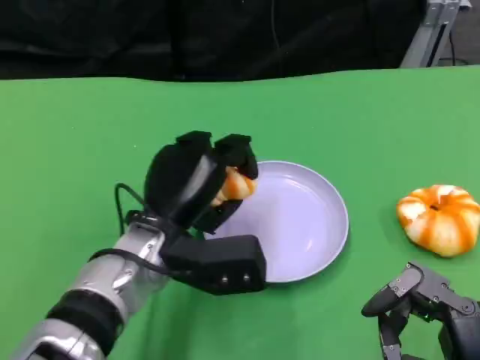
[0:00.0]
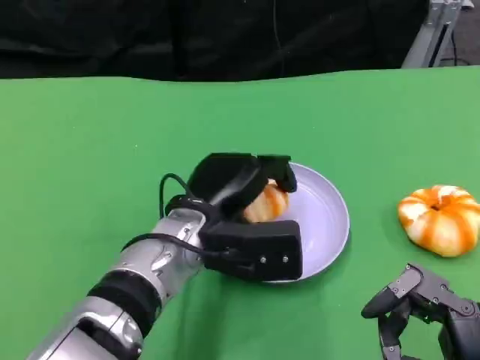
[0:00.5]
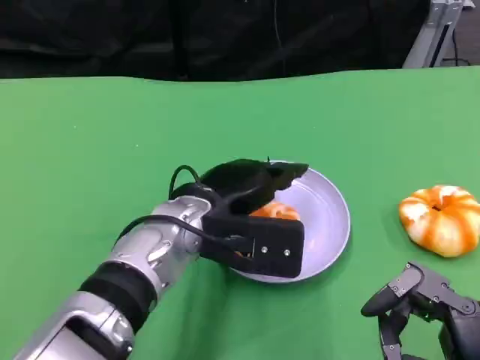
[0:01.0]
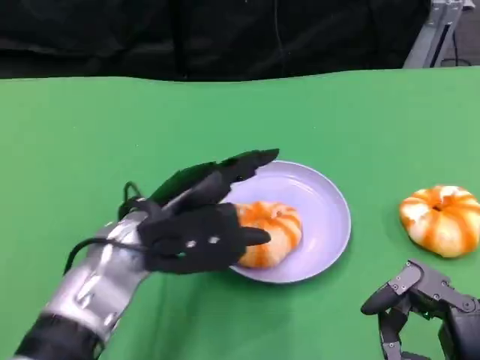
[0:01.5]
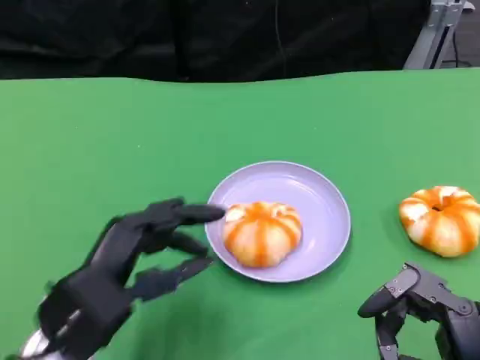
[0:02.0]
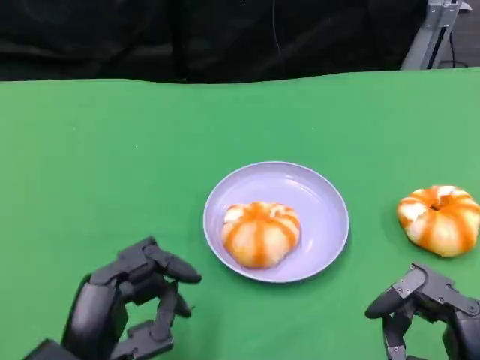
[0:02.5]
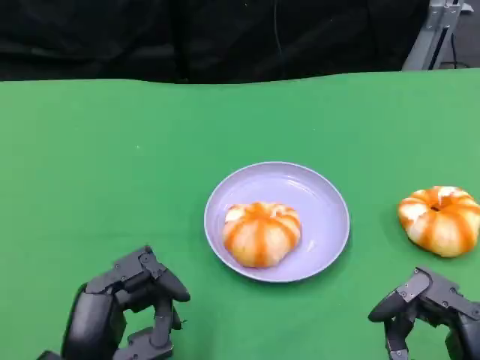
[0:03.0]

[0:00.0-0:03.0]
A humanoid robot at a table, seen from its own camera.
Task of the whole recording: Grasp the bread from the table and place it into the plate.
0:01.5 to 0:03.0: The left hand shifts roughly 15 cm backward and downward.

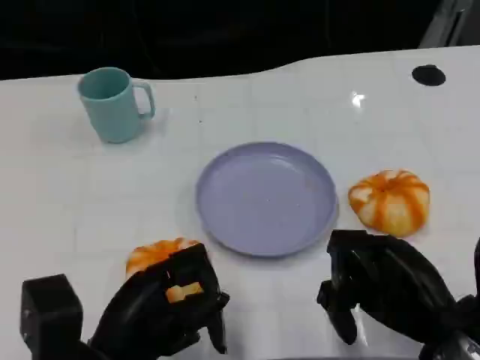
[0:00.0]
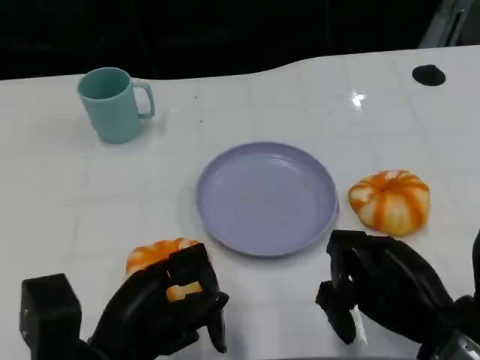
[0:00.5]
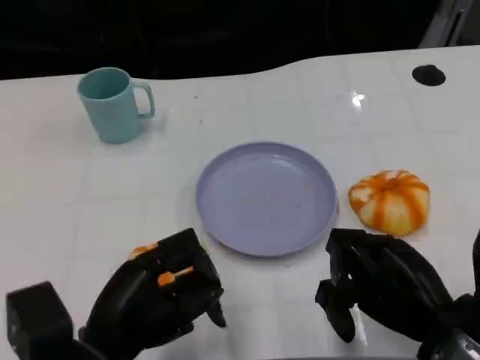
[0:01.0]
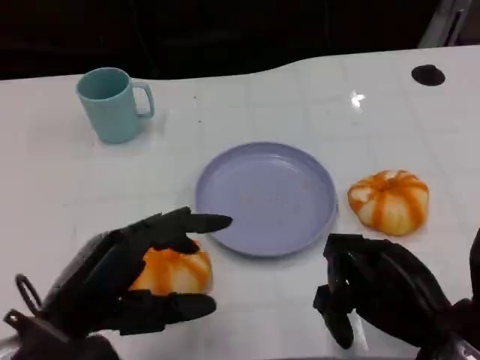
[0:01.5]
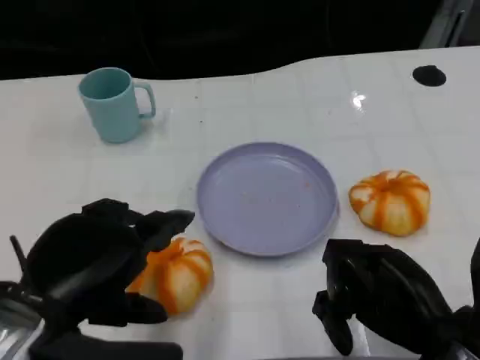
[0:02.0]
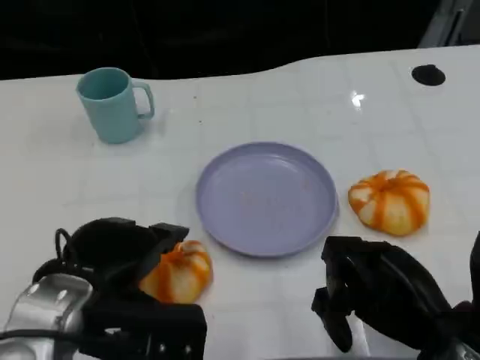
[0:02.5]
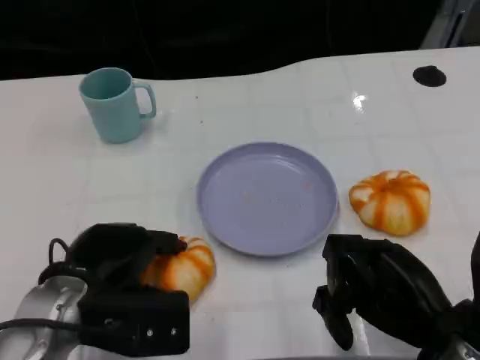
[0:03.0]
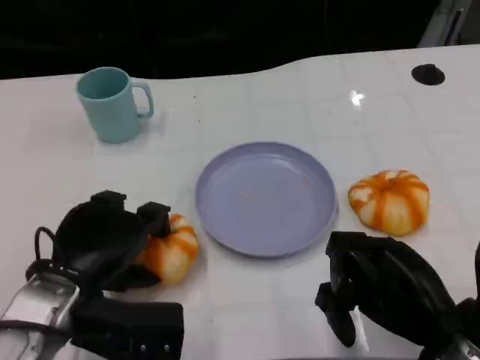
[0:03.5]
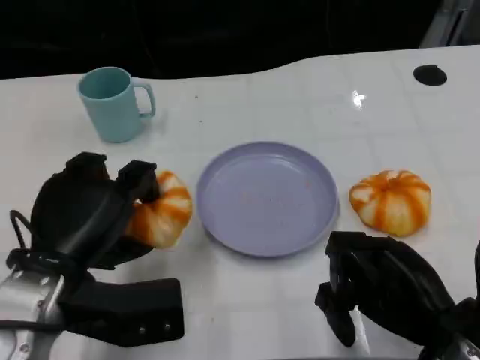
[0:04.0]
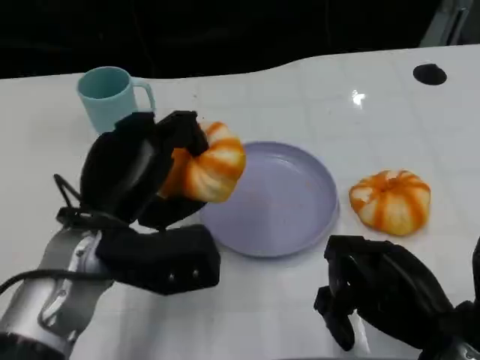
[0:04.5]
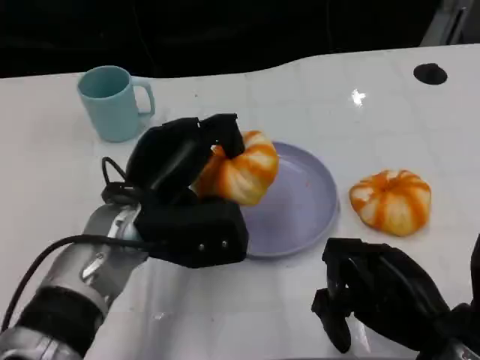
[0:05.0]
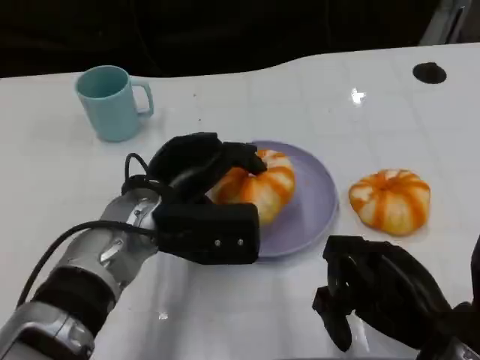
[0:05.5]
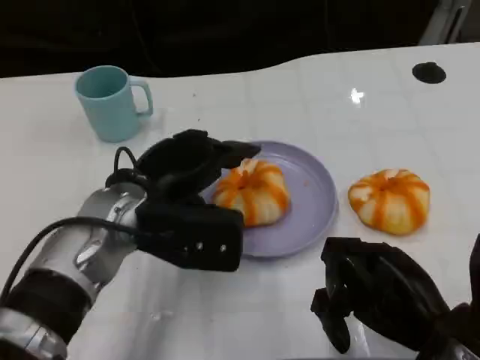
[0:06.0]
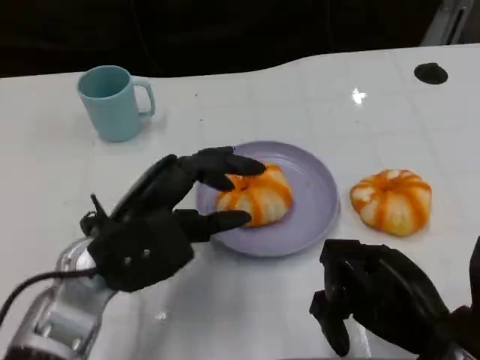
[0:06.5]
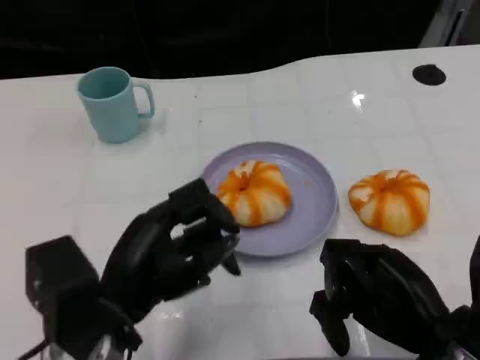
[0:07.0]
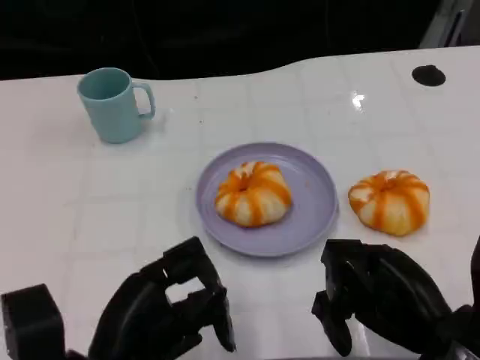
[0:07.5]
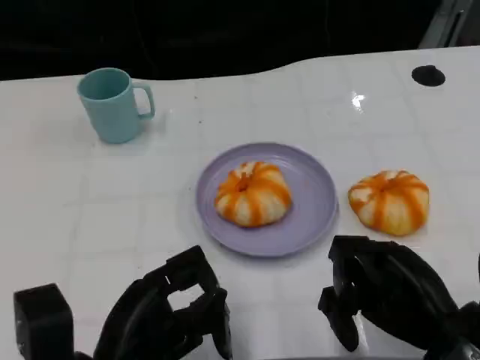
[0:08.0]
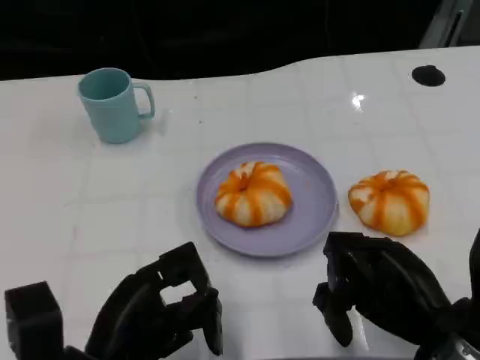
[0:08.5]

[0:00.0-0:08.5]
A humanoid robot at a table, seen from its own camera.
Task of the whole recording: Grasp the bread from the table and place it into the plate.
0:00.0 to 0:02.0: The left hand is displaced upward by some 10 cm.
0:02.0 to 0:04.0: The left hand heads forward and downward, covering about 10 cm.
0:06.5 to 0:08.5: The left hand goes some 10 cm backward and downward.

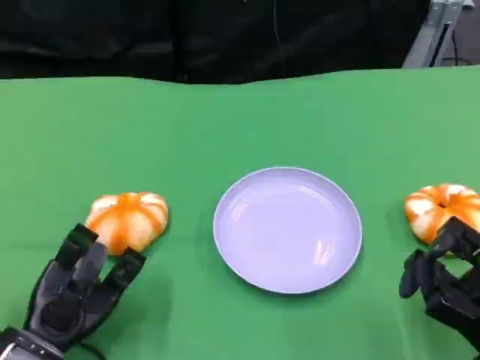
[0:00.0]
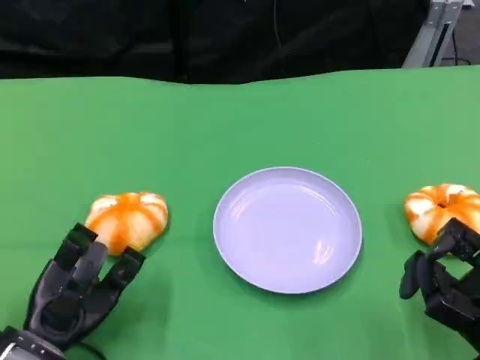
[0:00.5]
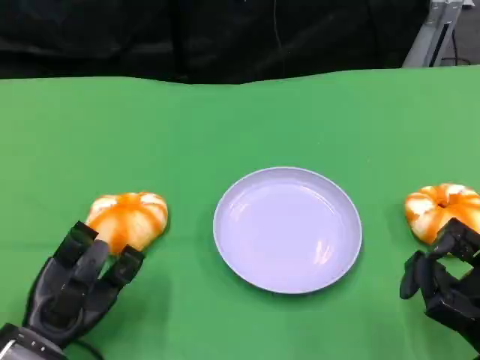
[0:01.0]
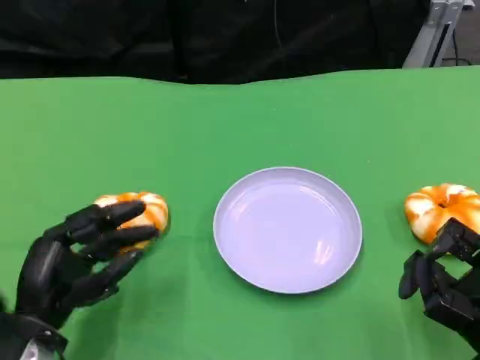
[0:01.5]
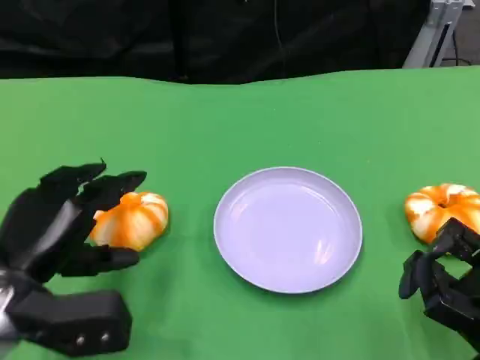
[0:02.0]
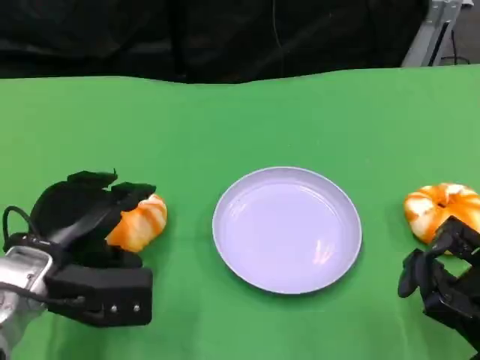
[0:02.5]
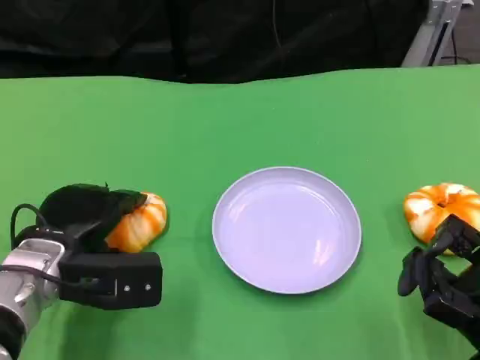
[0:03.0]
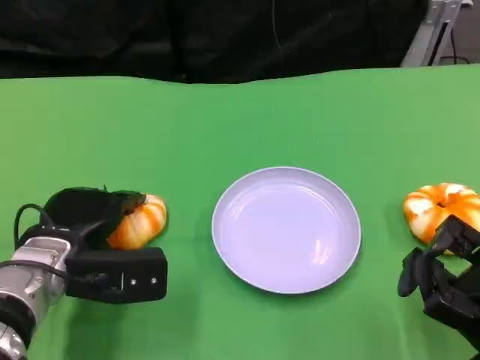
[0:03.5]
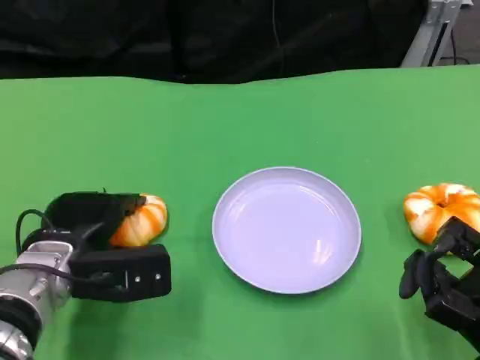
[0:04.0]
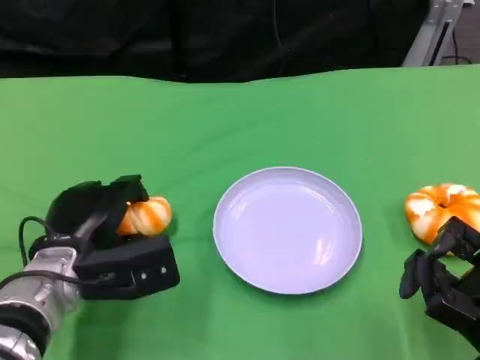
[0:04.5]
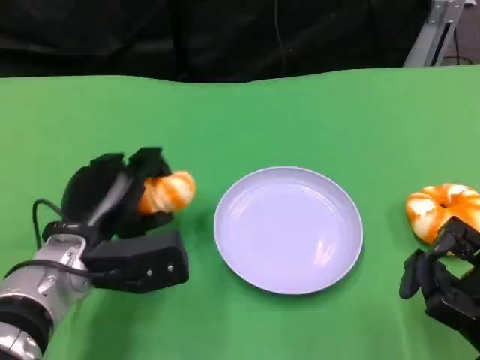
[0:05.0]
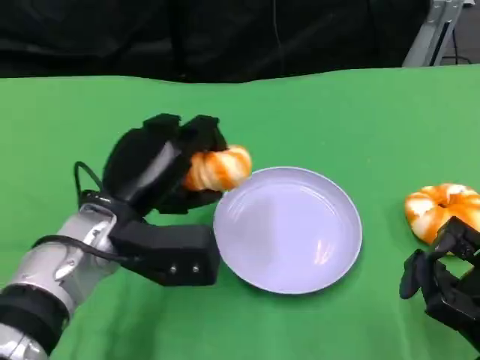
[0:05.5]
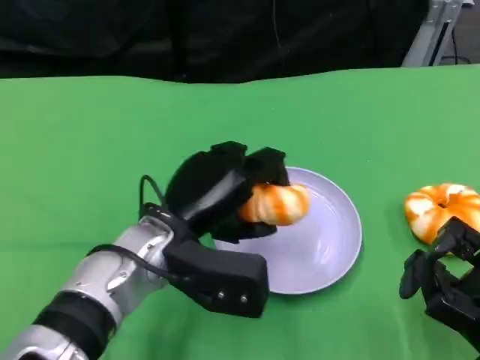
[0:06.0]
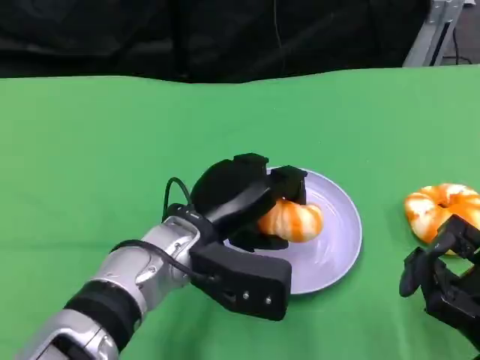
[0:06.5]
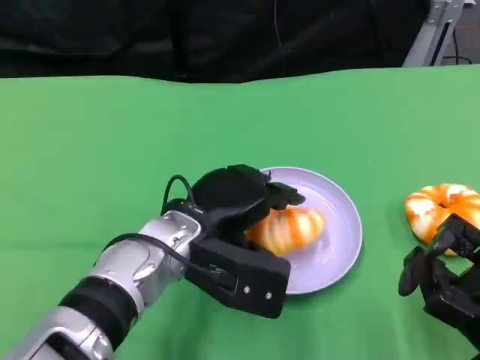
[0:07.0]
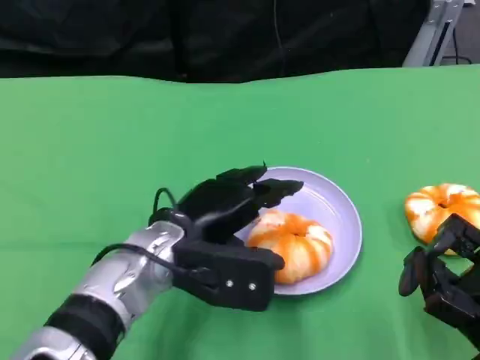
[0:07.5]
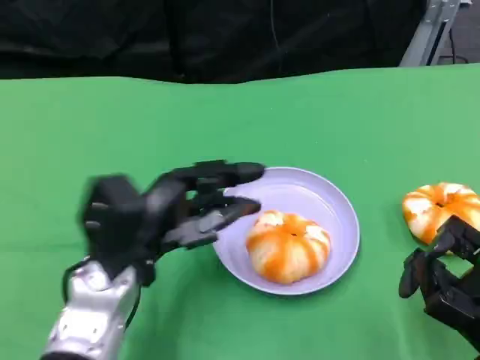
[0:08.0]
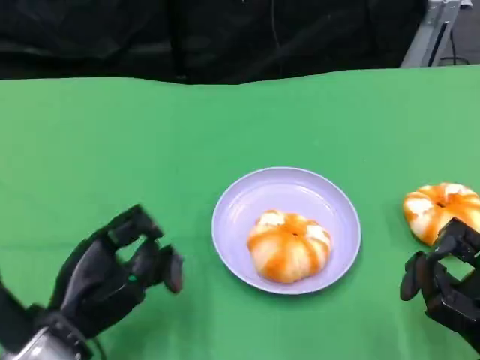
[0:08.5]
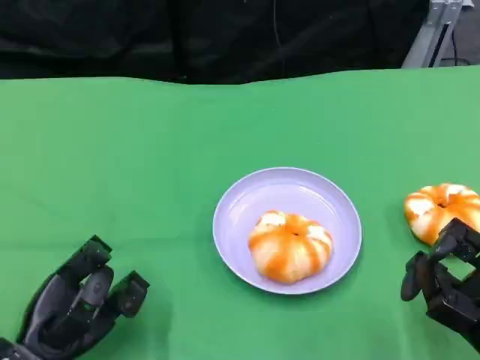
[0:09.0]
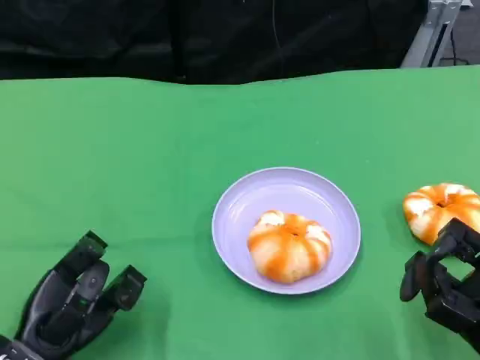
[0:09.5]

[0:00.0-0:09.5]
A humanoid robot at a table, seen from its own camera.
Task of the whole recording: Grasp the bread from the table and place it into the plate.
0:00.0 to 0:02.0: The left hand shifts approximately 10 cm upward.
0:02.0 to 0:04.0: The left hand goes some 5 cm forward.
0:04.0 to 0:05.5: The left hand shifts some 10 cm to the right and upward.
0:07.5 to 0:09.5: The left hand shifts roughly 20 cm to the left, downward and backward.

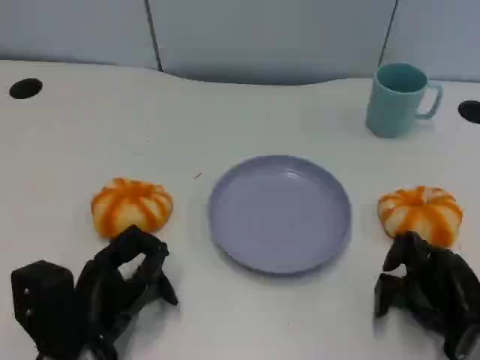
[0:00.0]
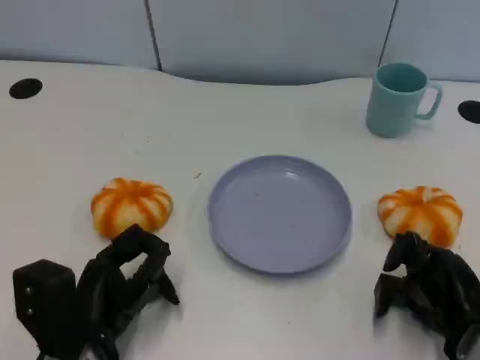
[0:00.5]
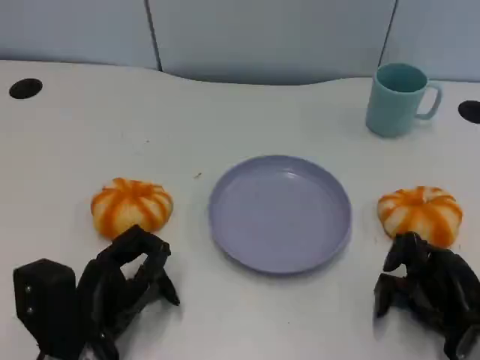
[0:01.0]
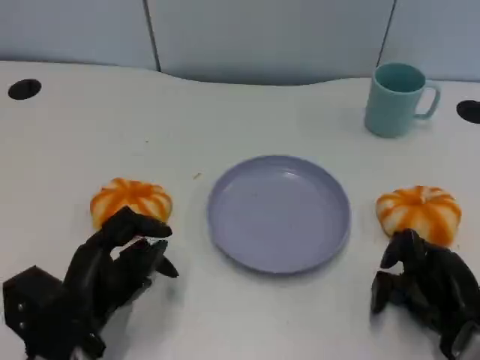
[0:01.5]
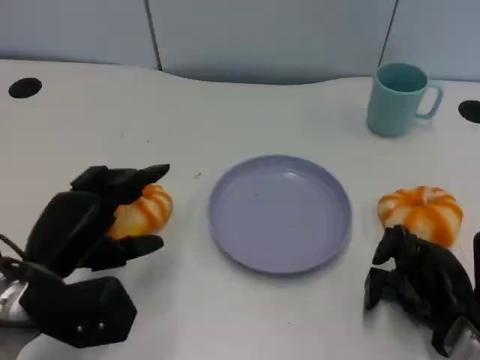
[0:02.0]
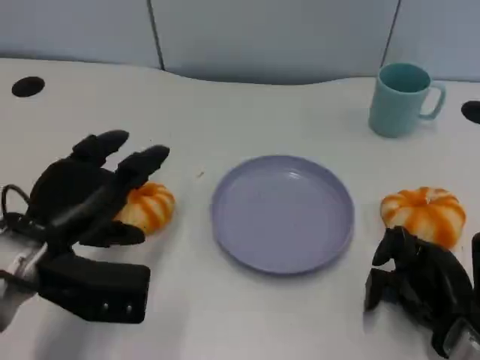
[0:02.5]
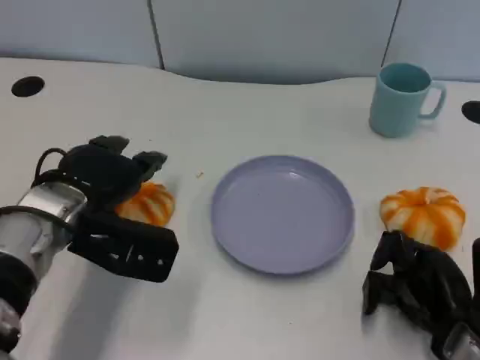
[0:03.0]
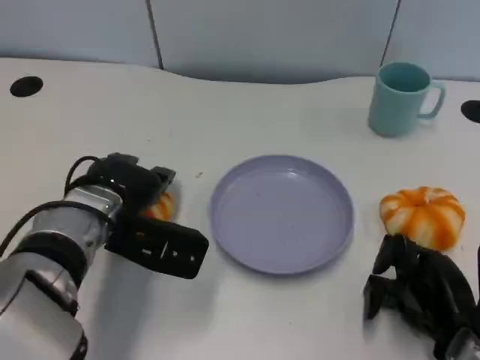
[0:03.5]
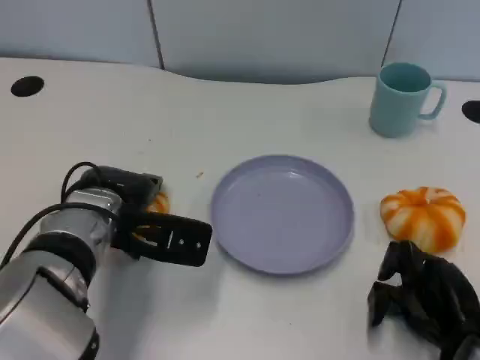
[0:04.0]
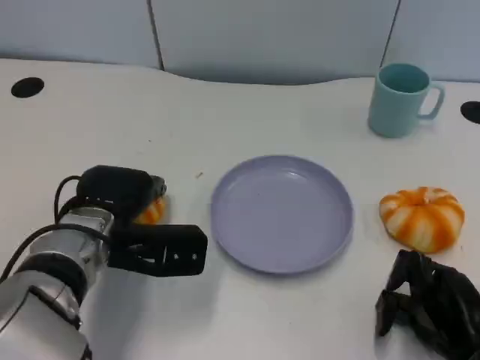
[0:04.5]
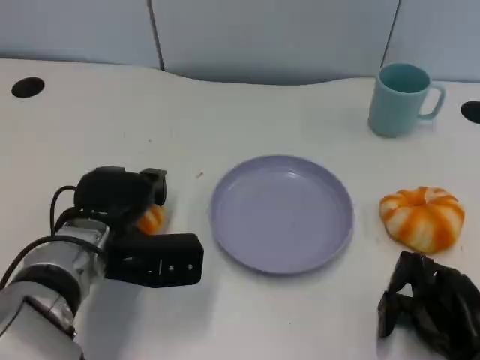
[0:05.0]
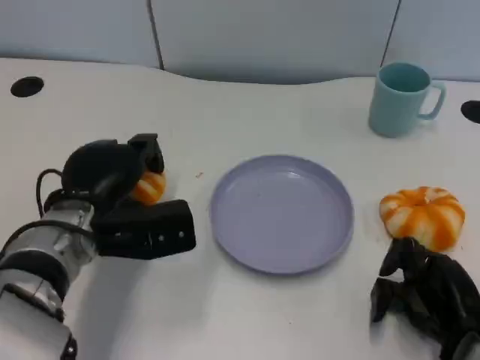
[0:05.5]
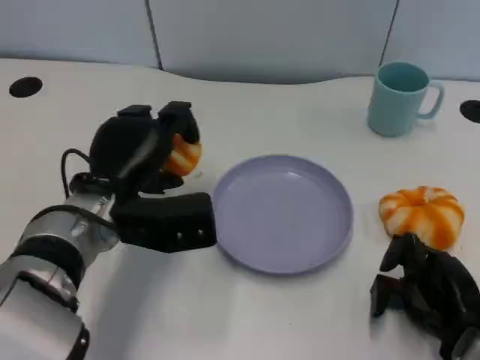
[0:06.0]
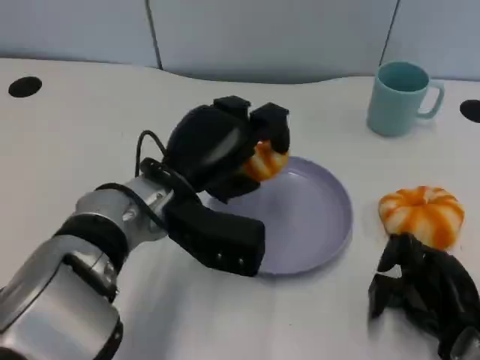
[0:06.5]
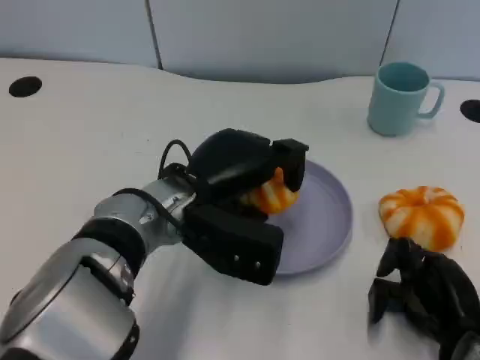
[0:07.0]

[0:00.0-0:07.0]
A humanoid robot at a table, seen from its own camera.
Task of the whole recording: Grasp the bread from the table and place it into the plate.
0:00.0 to 0:02.0: The left hand shifts roughly 5 cm upward.
0:02.0 to 0:03.5: The left hand is displaced forward and to the right by some 10 cm.
0:05.0 to 0:07.0: The left hand moves to the right, roughly 10 cm.
